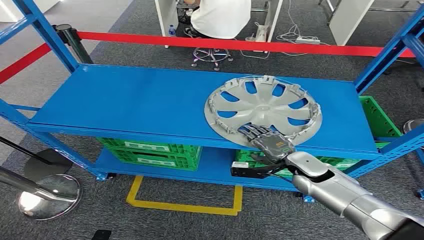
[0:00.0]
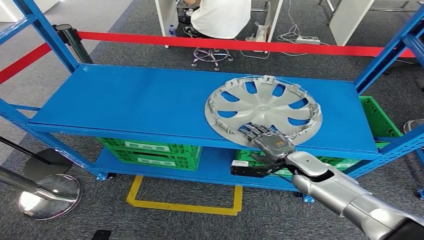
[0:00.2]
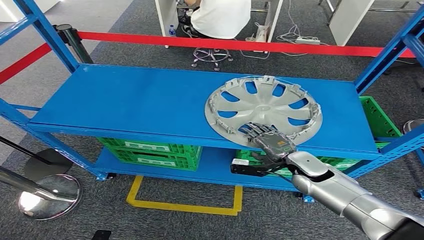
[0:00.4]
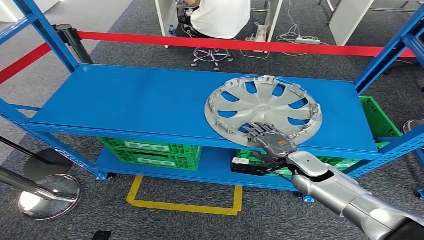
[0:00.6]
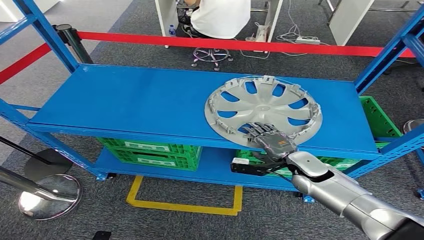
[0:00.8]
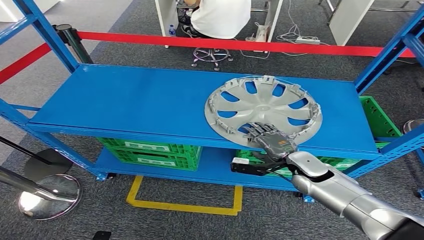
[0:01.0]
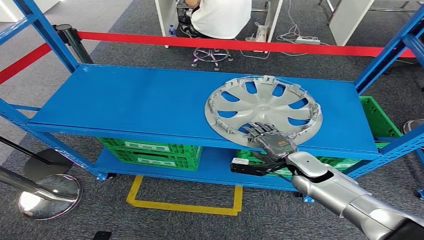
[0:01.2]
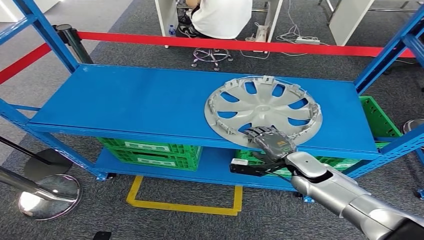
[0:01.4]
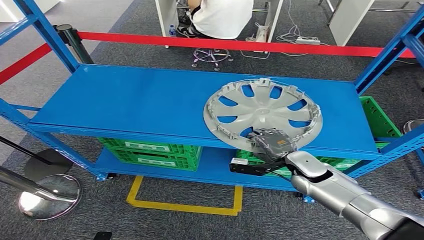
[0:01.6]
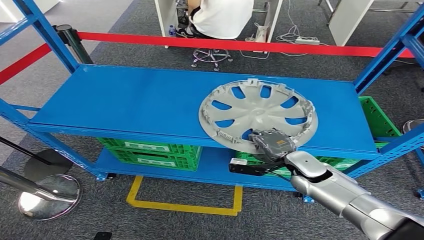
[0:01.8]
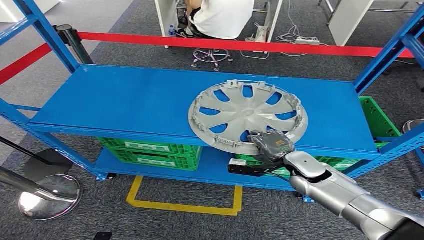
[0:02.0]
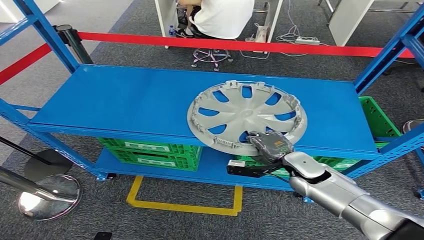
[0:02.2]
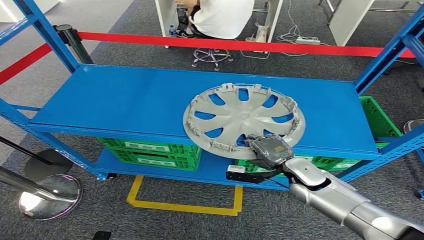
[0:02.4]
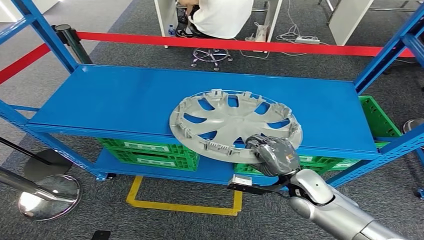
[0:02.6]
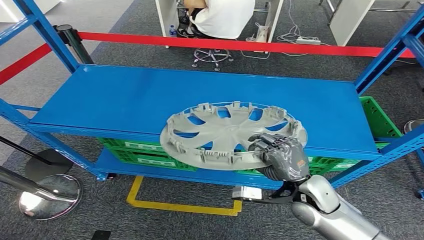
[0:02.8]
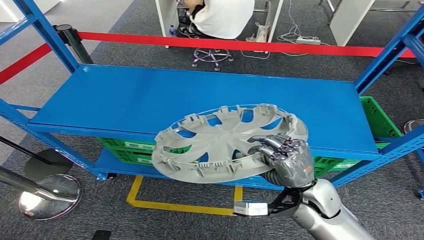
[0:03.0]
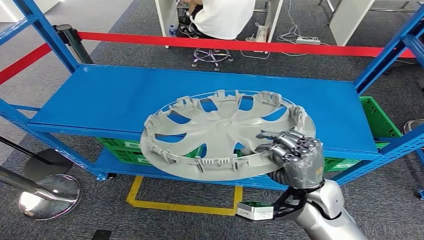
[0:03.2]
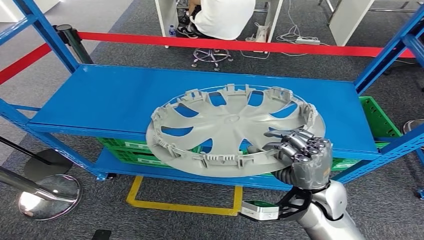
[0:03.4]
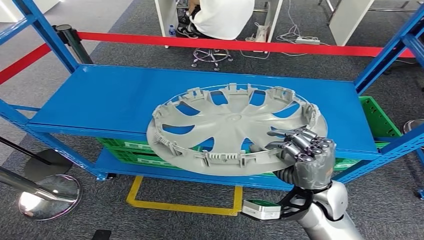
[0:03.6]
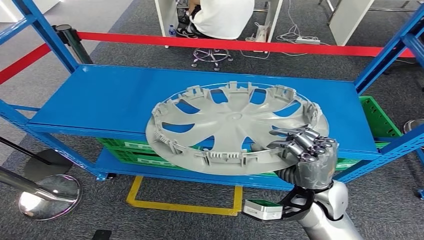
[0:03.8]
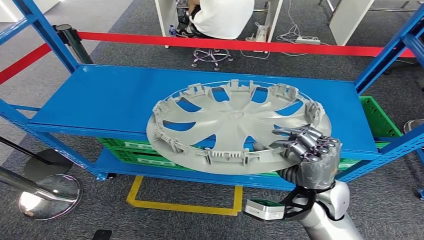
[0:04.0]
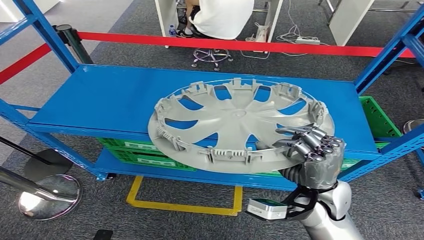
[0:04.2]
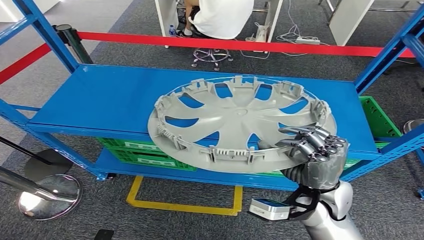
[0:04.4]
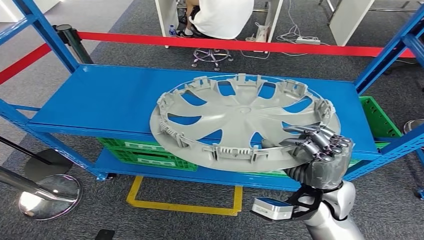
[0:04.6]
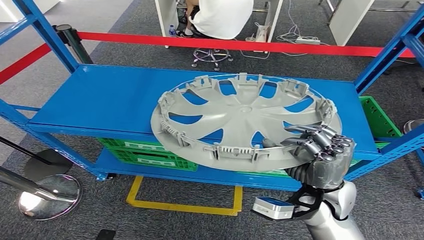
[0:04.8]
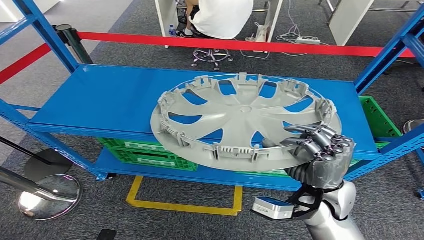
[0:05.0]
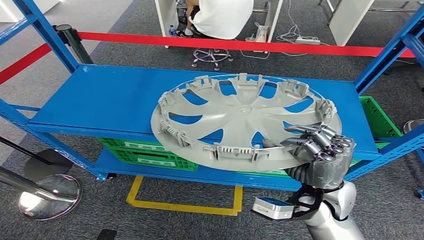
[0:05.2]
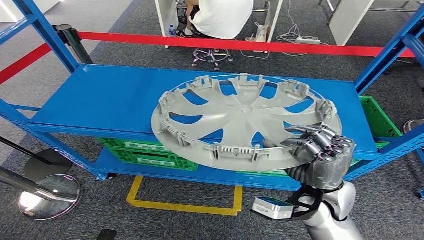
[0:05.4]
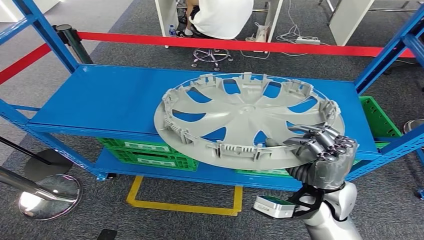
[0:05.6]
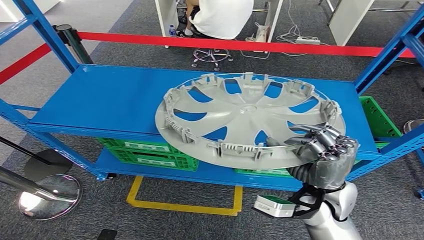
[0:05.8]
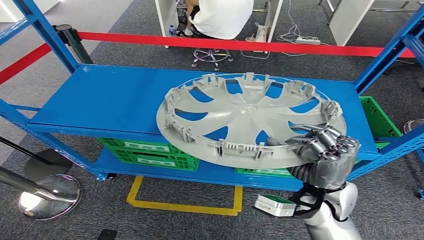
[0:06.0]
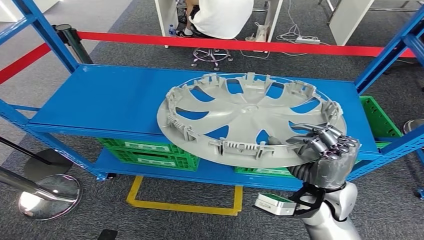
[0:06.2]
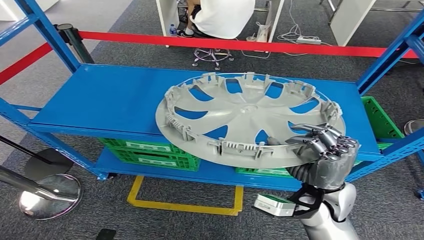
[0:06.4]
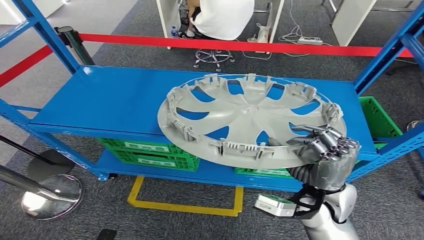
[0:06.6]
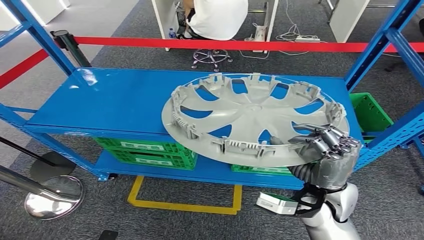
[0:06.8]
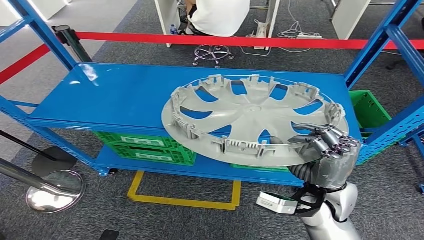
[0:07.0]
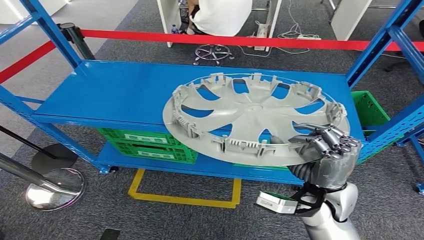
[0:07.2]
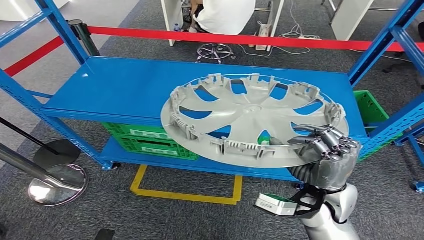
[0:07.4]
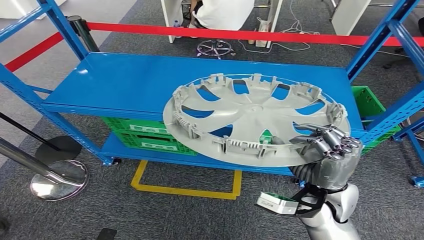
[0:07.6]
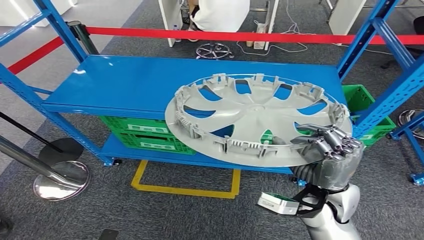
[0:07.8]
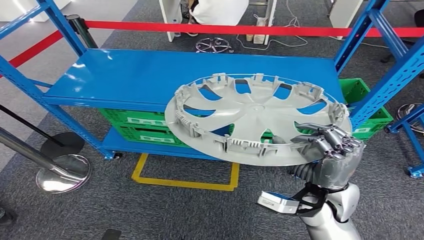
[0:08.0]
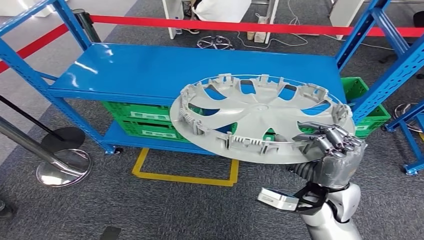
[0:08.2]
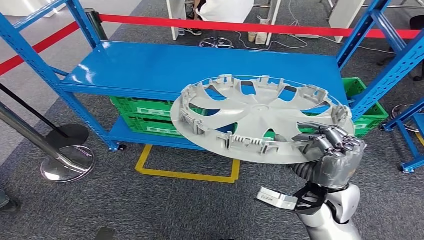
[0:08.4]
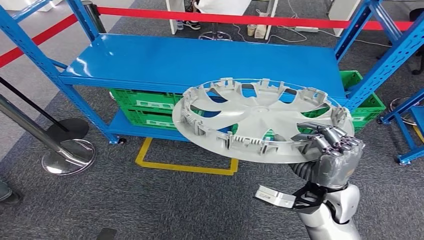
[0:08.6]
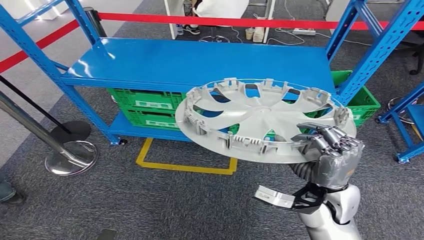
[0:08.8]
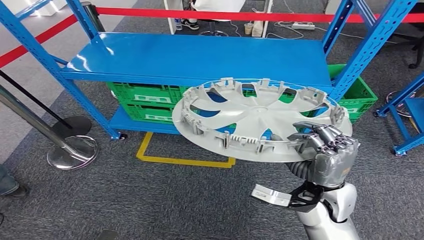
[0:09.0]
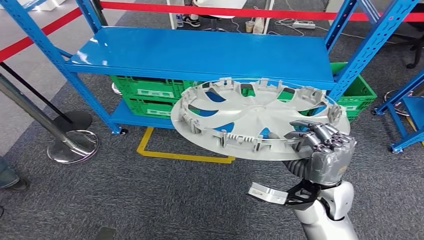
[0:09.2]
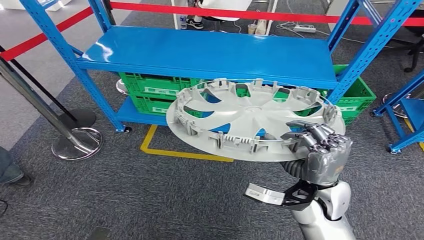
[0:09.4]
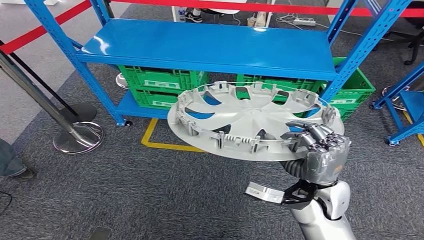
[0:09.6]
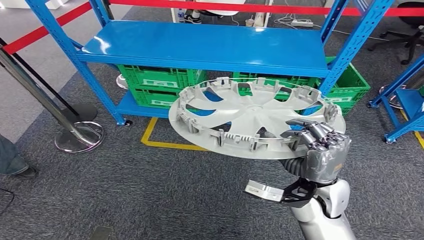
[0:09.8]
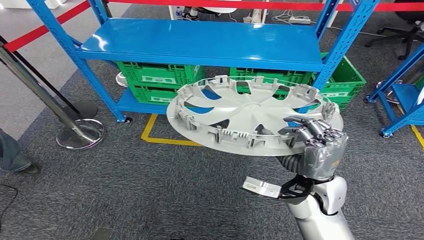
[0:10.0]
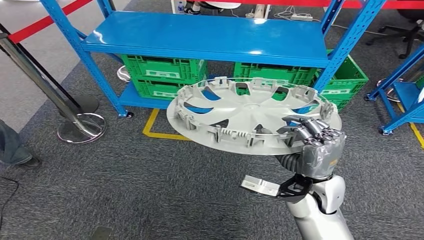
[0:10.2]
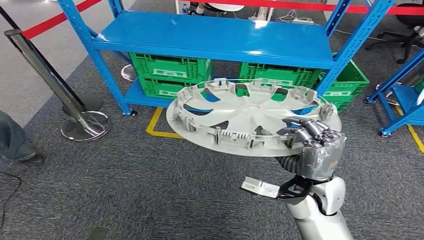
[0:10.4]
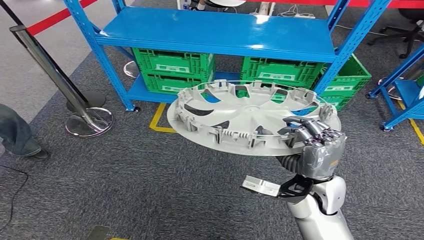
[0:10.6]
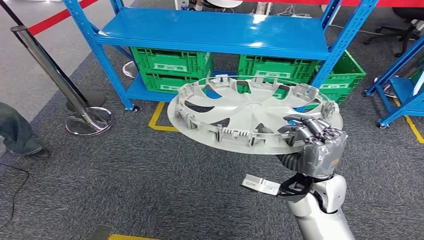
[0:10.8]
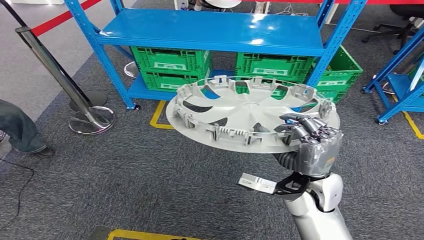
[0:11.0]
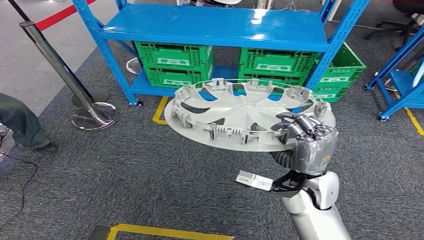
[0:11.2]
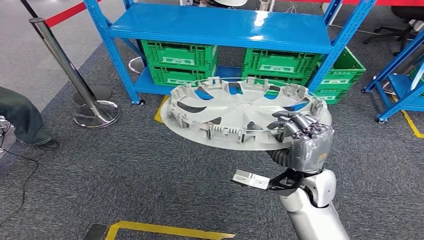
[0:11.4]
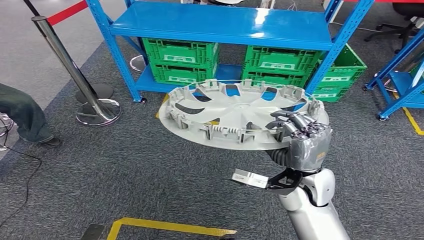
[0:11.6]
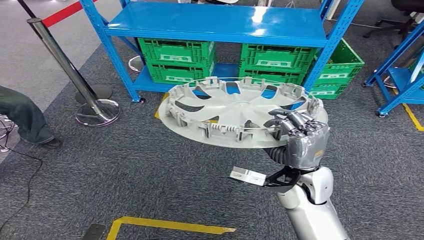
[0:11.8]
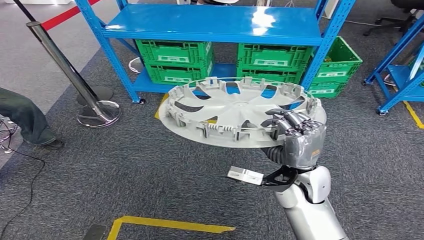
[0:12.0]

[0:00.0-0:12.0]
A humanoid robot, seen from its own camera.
Step, 0:00.0 to 0:05.8: Pick up the small component from the shelf.
0:01.6 to 0:03.0: The right hand is displaced backward and upward by approximately 10 cm.
0:03.0 to 0:04.4: The hands move only a little.
0:04.4 to 0:06.0: Neither hand changes place.

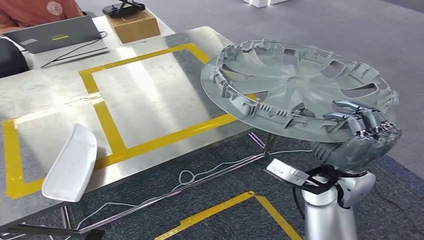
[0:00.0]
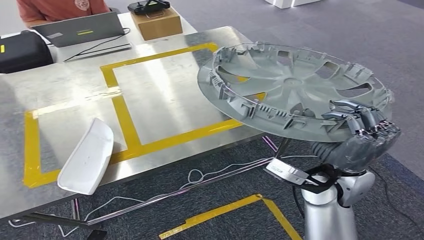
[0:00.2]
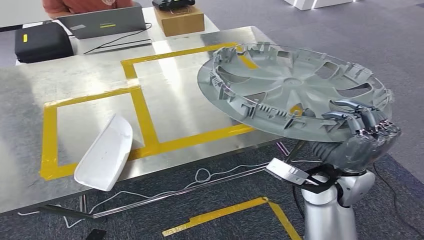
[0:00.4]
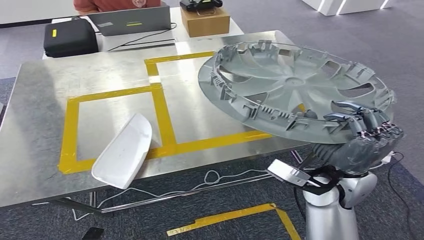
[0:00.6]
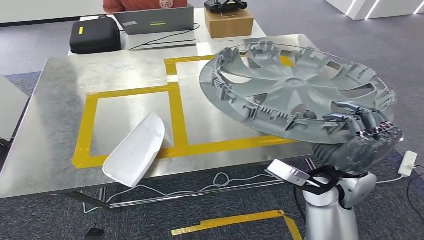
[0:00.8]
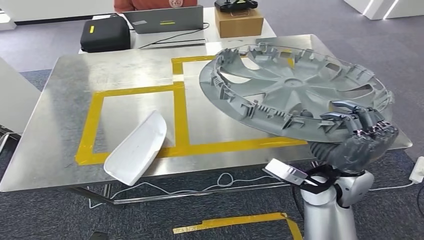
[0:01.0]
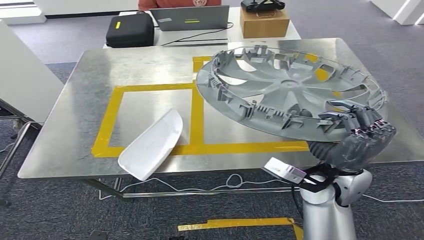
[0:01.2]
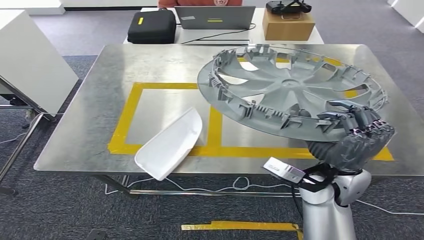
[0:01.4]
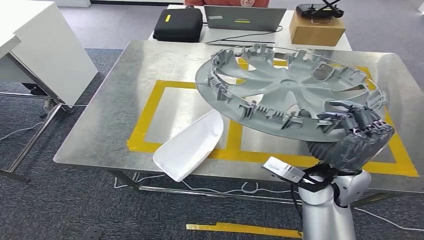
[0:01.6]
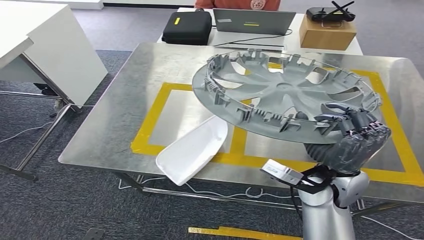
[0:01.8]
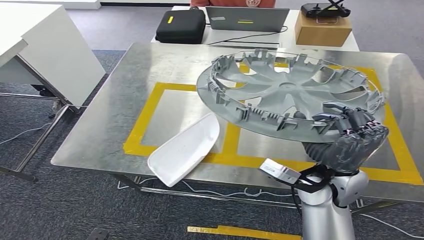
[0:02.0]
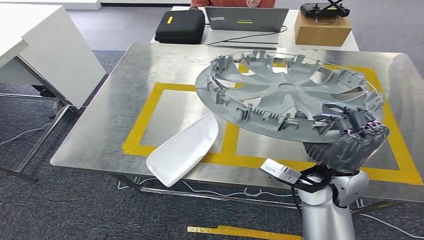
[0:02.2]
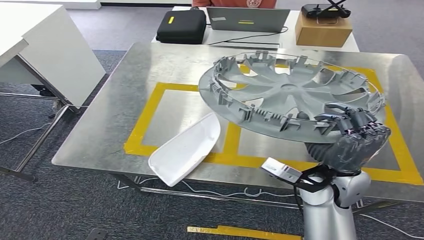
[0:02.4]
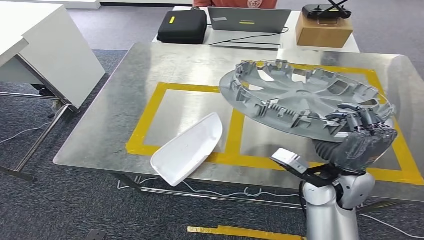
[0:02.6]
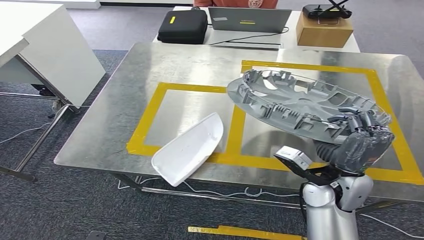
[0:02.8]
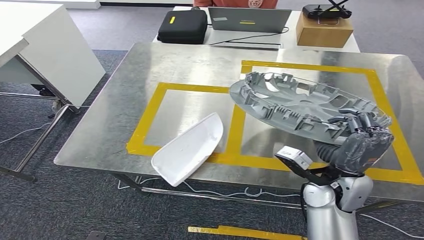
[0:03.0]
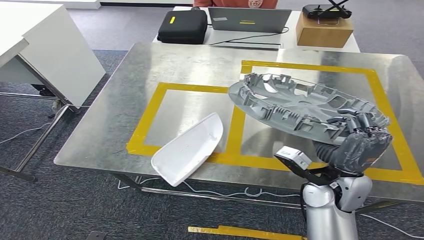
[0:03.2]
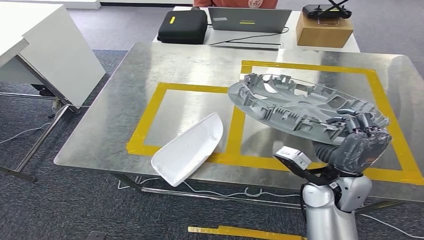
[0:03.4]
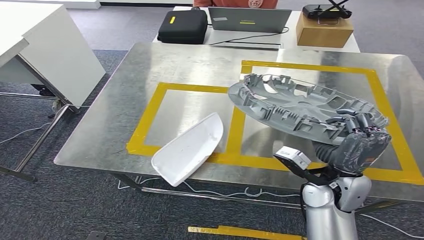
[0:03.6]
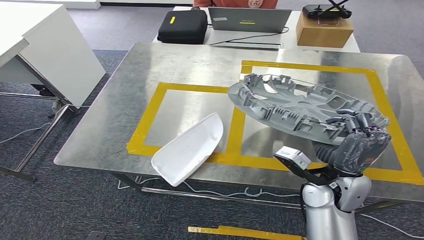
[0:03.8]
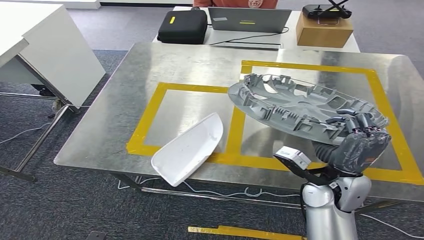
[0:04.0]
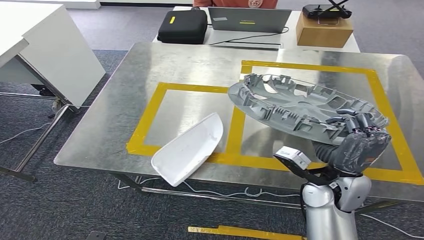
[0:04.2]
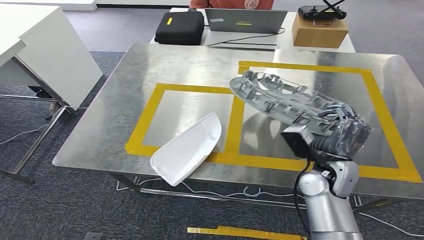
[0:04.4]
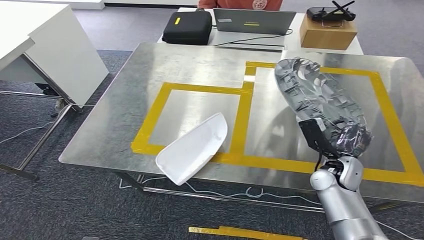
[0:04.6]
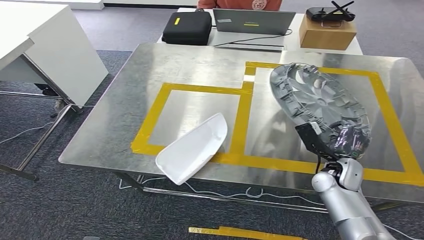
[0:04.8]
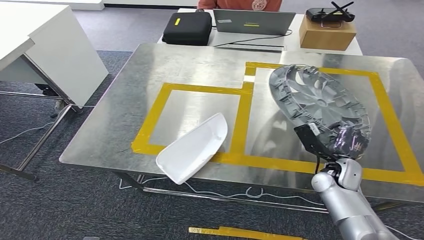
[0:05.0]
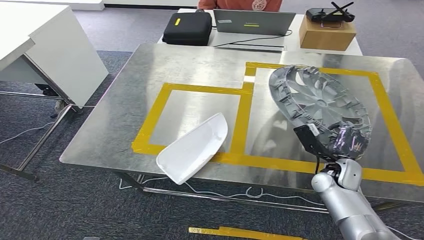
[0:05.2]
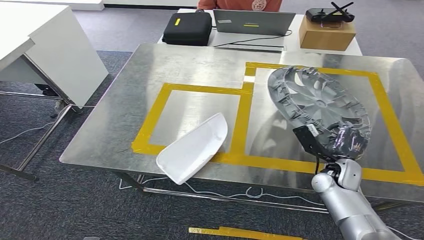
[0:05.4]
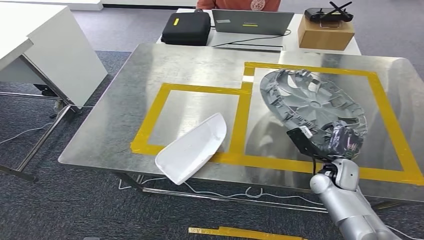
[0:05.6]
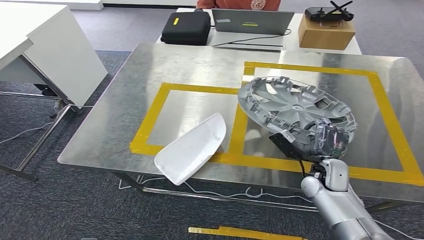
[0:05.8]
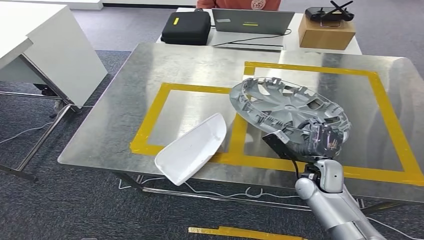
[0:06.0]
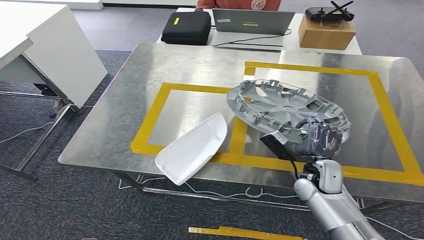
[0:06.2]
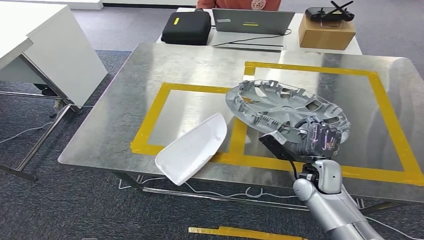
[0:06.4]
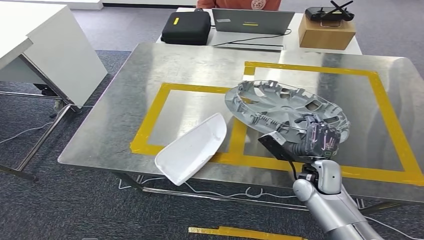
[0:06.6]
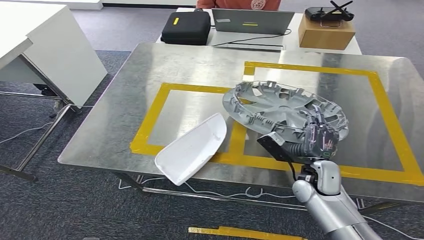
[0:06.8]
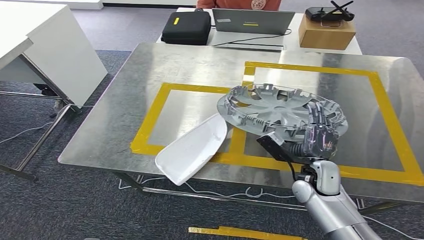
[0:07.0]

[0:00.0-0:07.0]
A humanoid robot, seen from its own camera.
0:02.8 to 0:04.2: Neither hand changes place.
0:05.6 to 0:07.0: The right hand travels to the left by some 5 cm.
